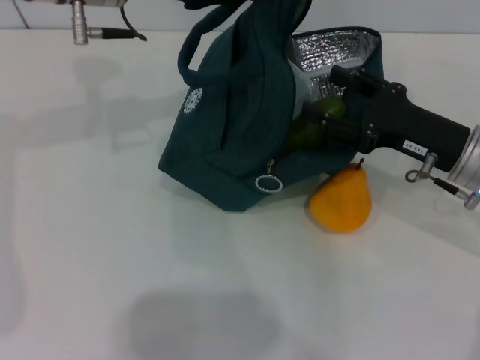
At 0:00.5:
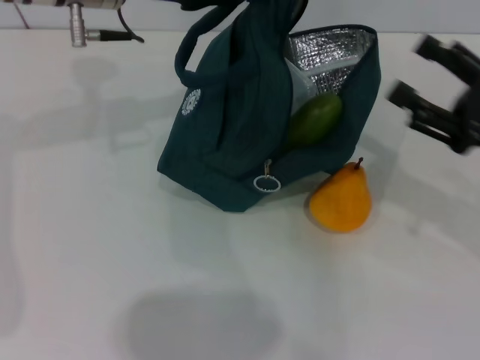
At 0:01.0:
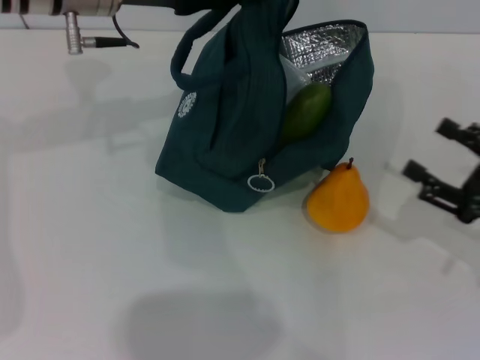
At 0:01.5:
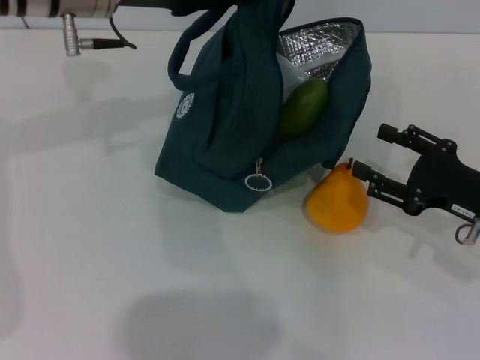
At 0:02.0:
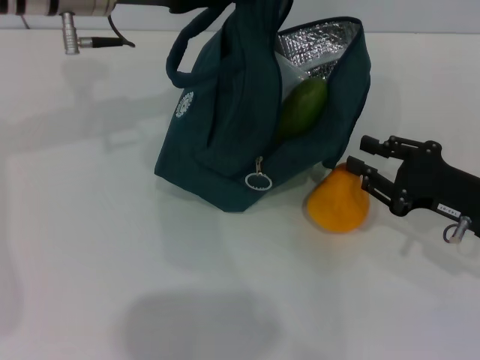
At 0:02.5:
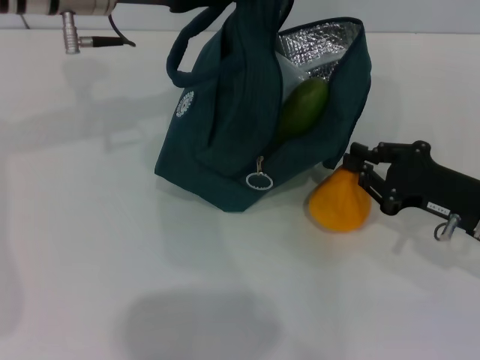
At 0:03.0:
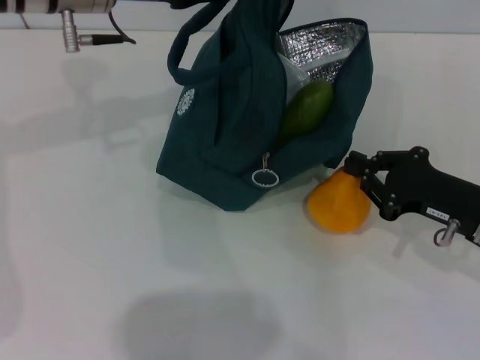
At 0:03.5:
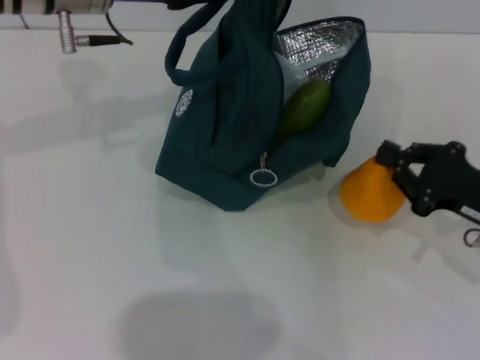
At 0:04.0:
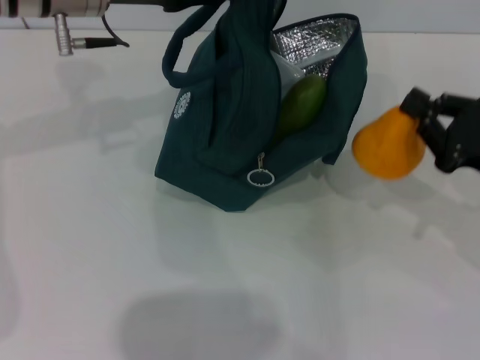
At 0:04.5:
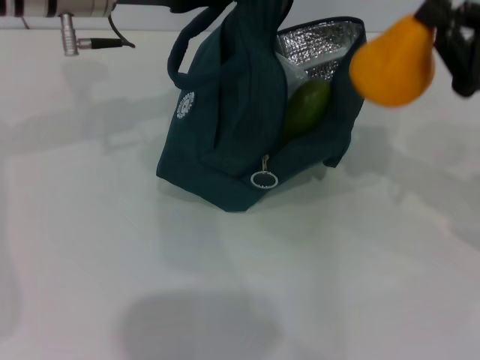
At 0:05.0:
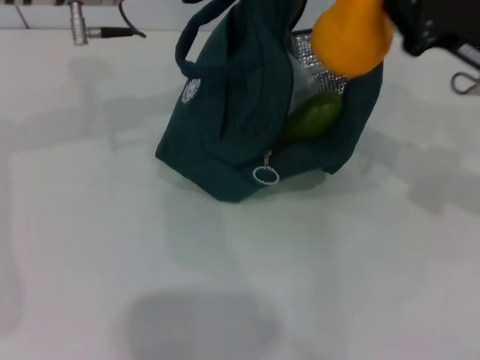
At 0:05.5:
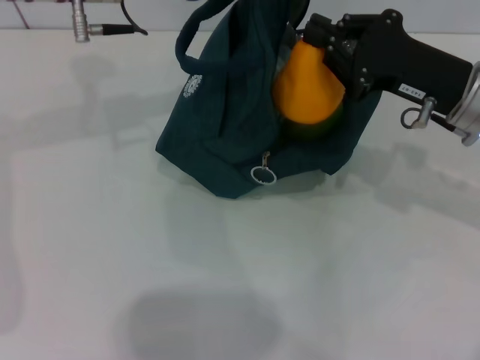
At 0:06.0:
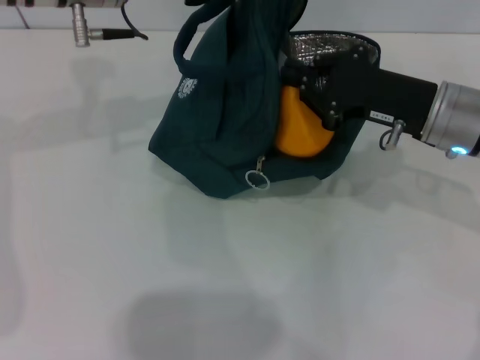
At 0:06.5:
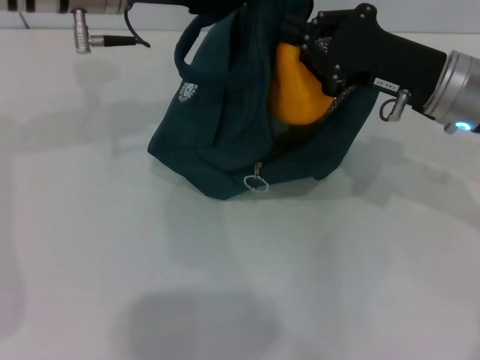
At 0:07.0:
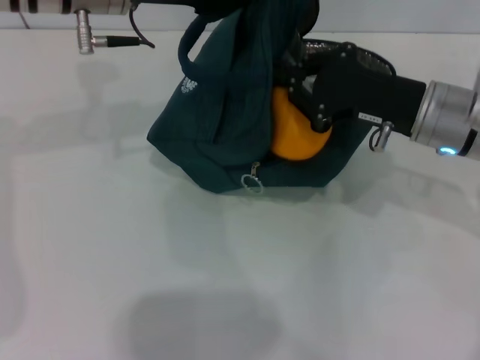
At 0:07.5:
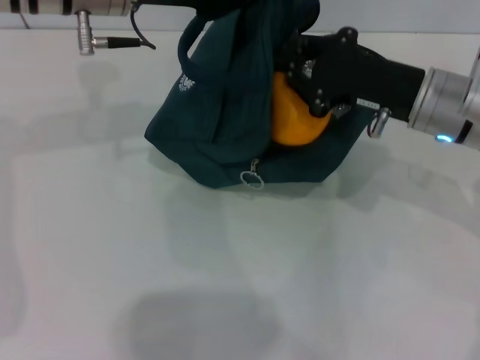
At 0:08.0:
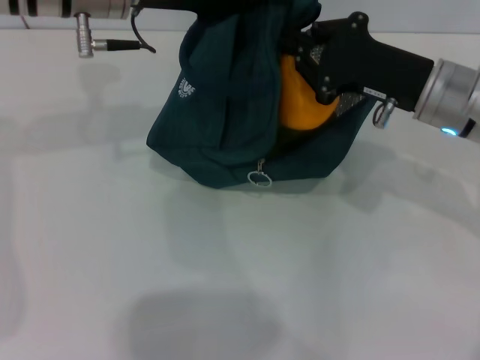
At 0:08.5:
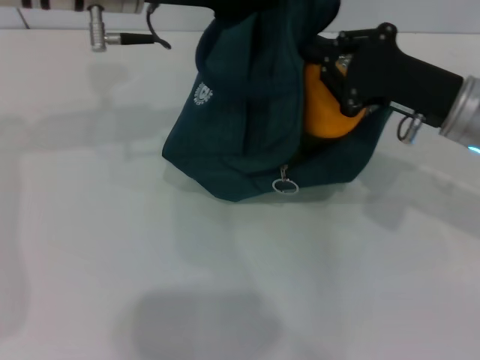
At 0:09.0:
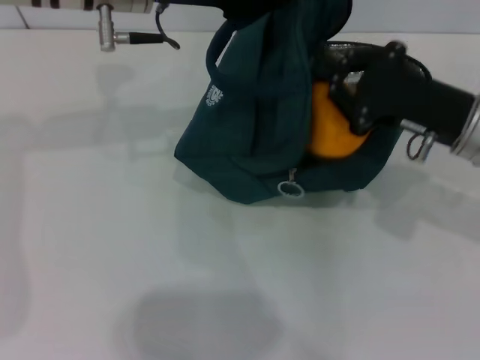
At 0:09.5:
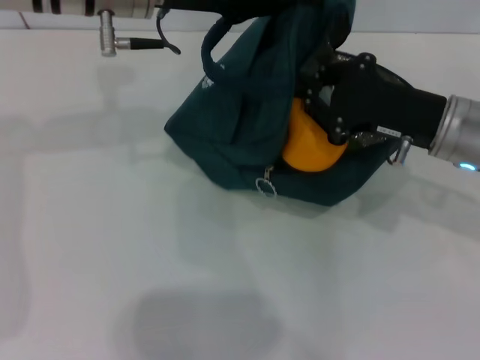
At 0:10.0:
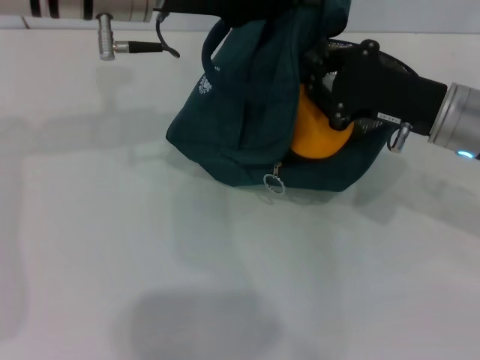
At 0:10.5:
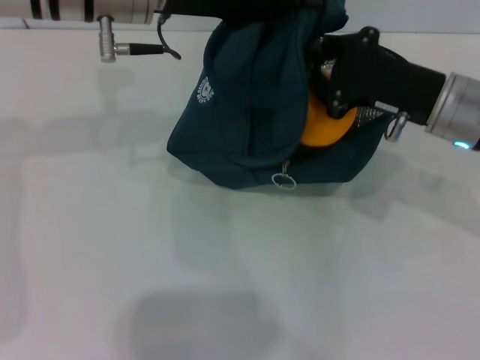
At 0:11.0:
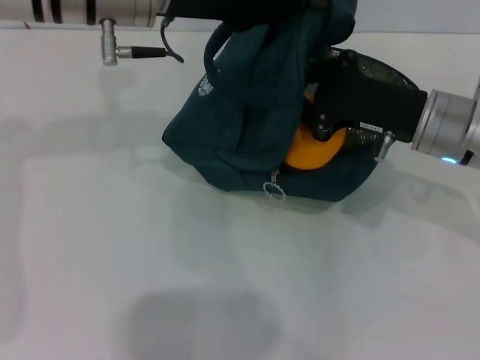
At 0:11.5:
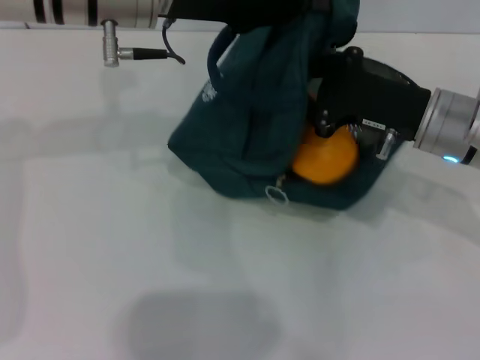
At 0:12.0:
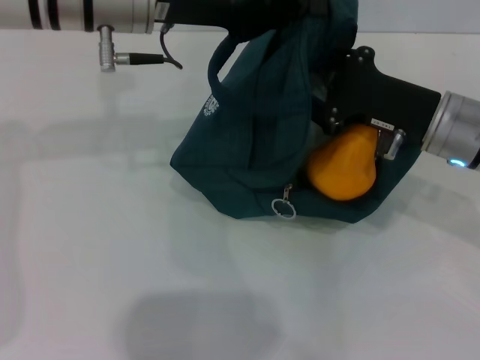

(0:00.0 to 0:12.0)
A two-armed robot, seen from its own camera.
Step, 0:00.5 - 0:03.0: Grab the pear with your right hand.
Step, 0:03.5 - 0:11.5: Secure the lunch bag with your left hand.
0:02.0 - 0:04.0: The right gripper closes its fingers.
0:04.0 - 0:06.0: The right gripper moves to the left and forward, roughly 10 cm.
0:06.0 - 0:12.0: The grippers move only a little.

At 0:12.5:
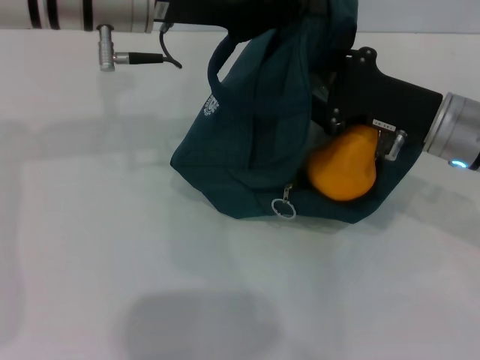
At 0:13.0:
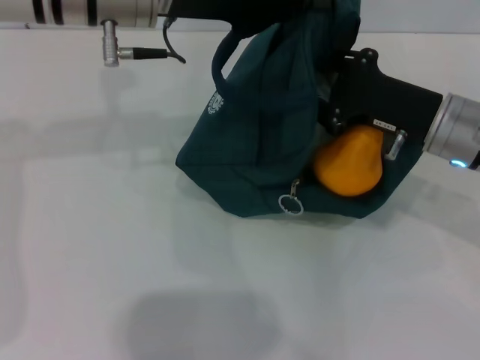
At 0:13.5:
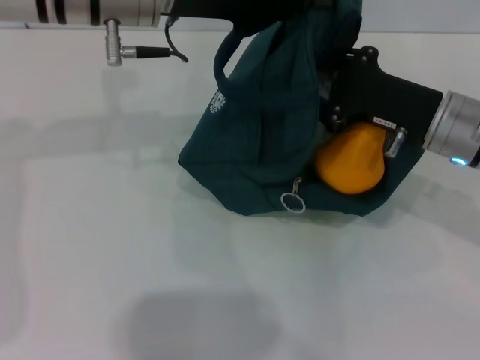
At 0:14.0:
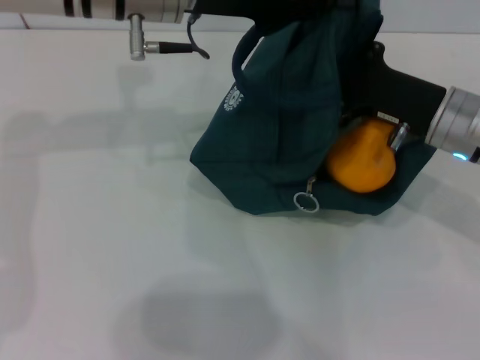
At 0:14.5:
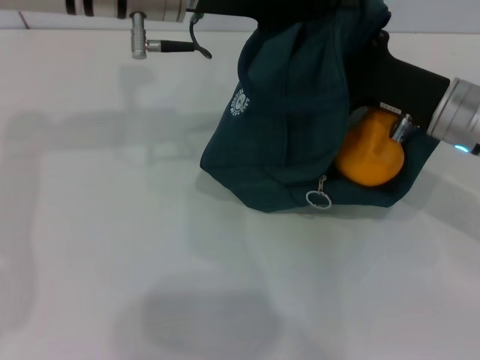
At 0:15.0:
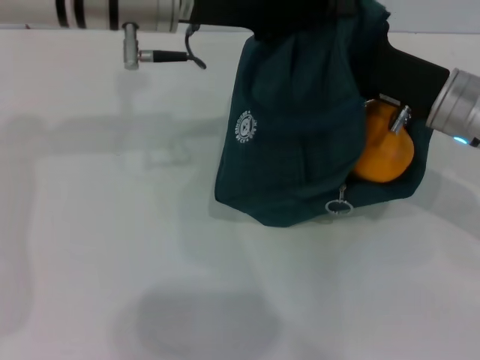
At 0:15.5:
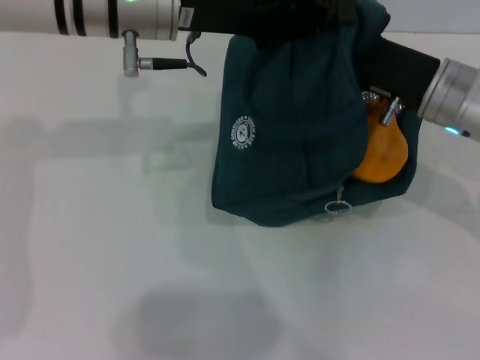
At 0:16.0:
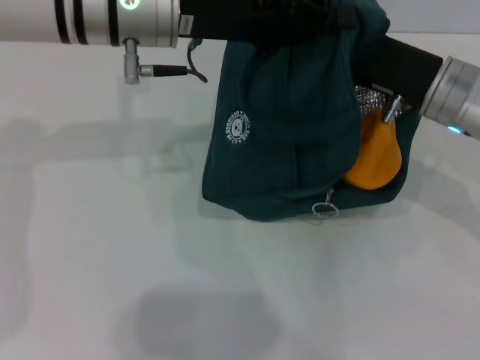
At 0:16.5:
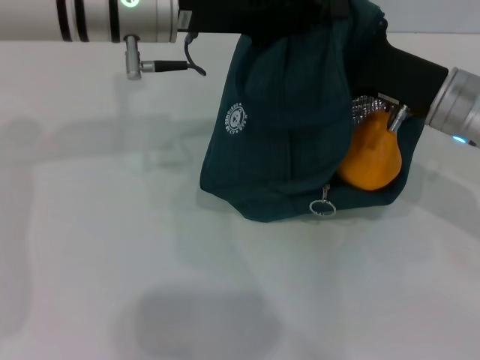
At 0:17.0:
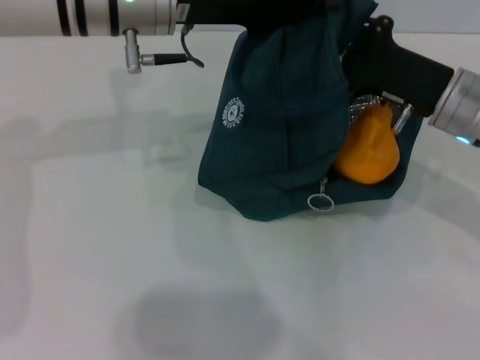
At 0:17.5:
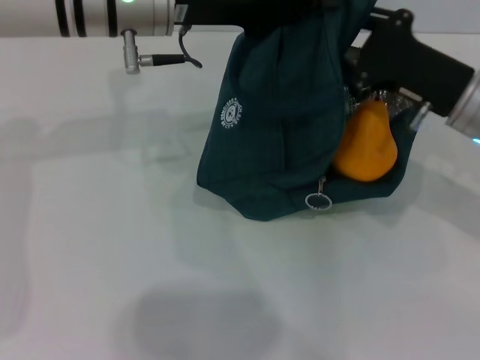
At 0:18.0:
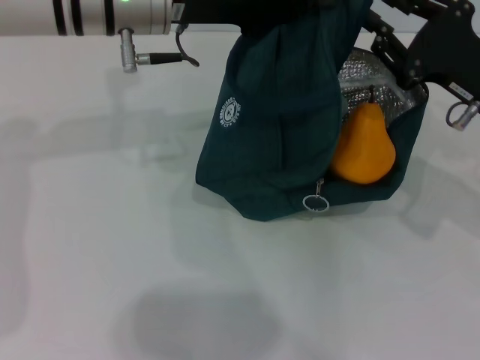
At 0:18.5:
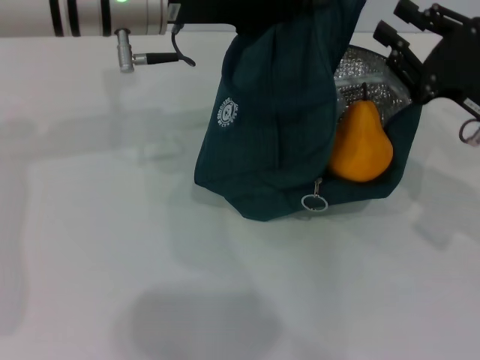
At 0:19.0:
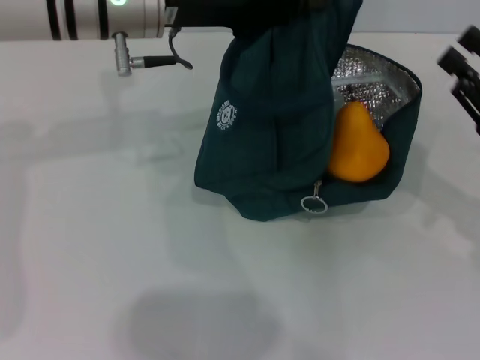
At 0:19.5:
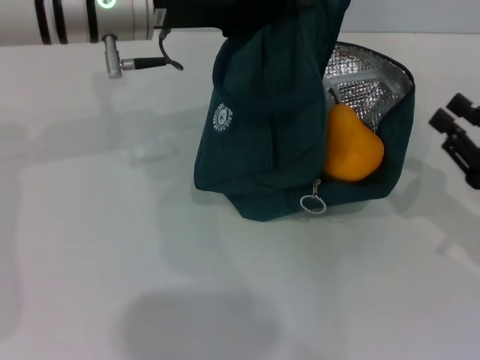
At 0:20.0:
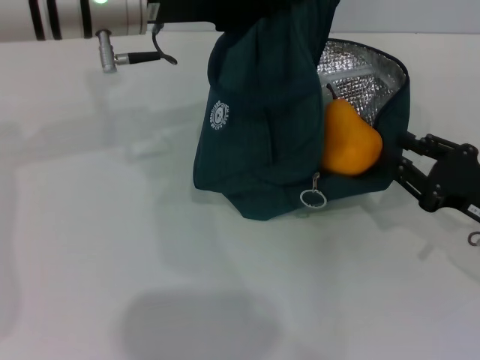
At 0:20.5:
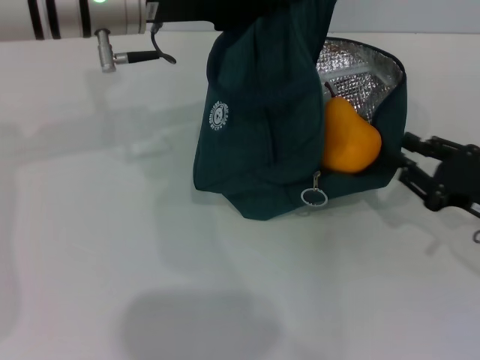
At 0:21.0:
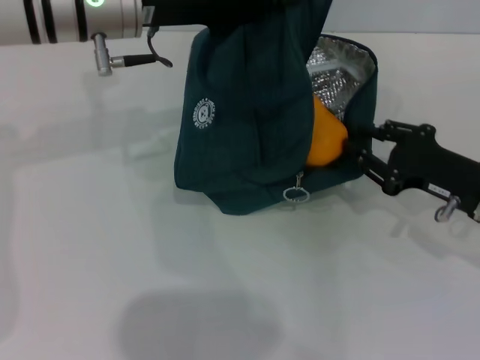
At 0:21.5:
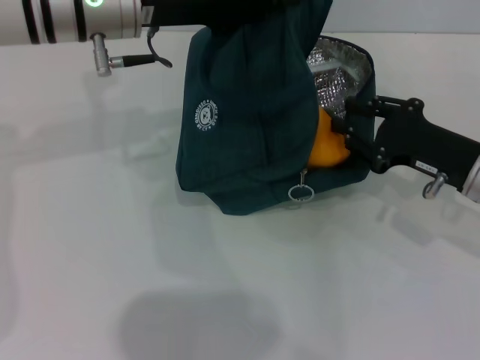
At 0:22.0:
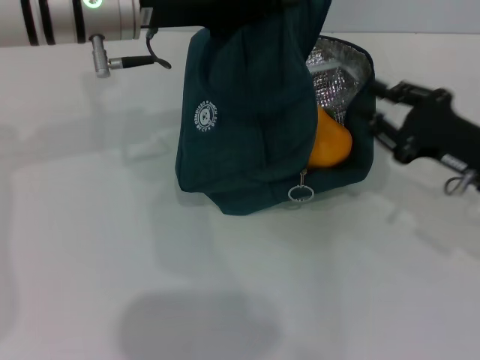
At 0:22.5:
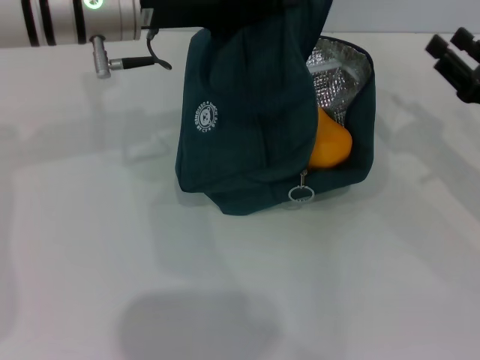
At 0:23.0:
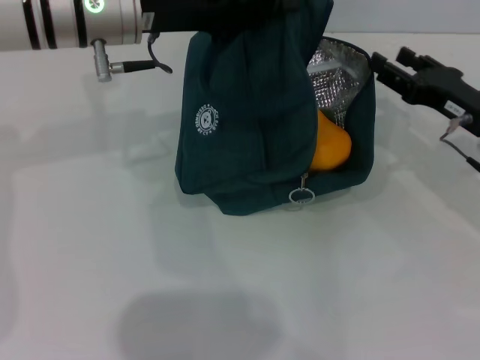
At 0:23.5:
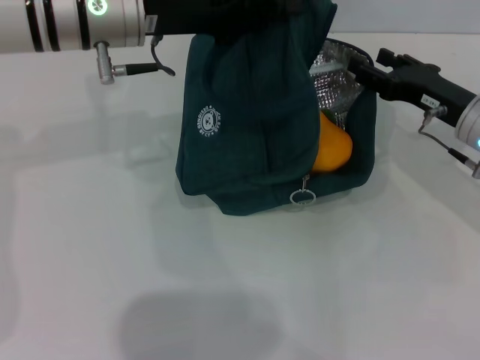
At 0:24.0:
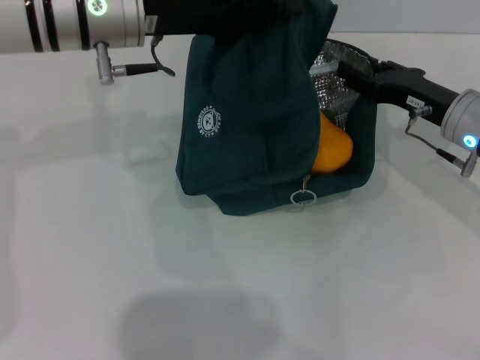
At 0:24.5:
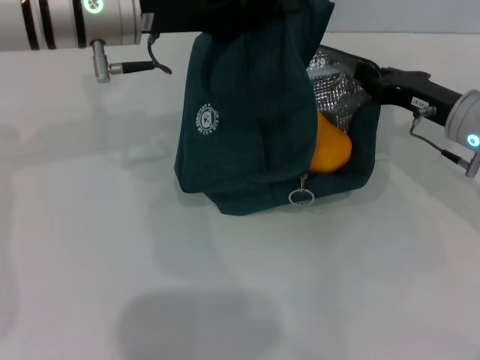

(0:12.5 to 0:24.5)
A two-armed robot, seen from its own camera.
0:12.5 - 0:16.5: The grippers stay close to where they were, moving slightly.
0:16.5 - 0:18.5: The right gripper shifts about 5 cm to the right.
0:18.5 - 0:20.5: The right gripper travels downward by approximately 5 cm.
0:20.5 - 0:22.5: The right gripper ends up about 5 cm from where it was.
0:22.5 - 0:24.5: The right gripper goes approximately 10 cm to the left and forward.

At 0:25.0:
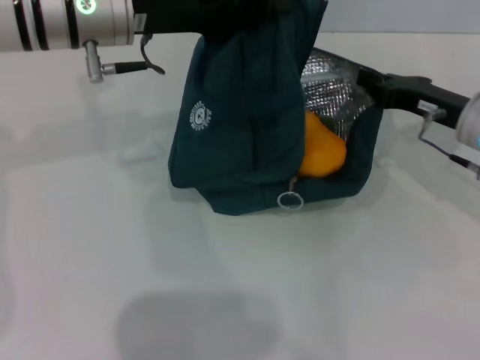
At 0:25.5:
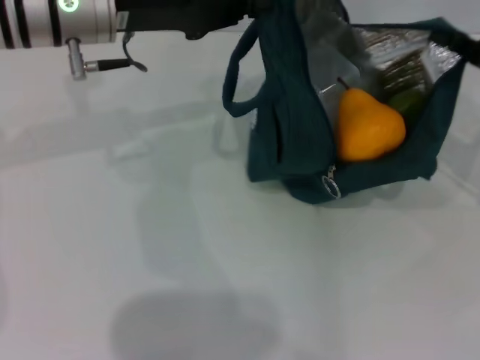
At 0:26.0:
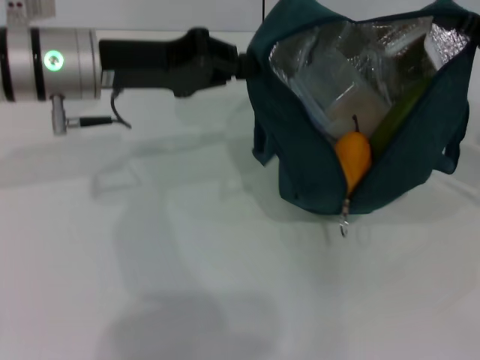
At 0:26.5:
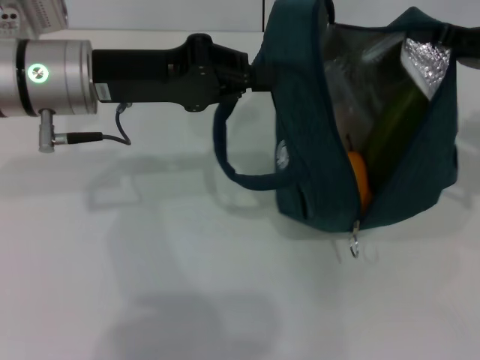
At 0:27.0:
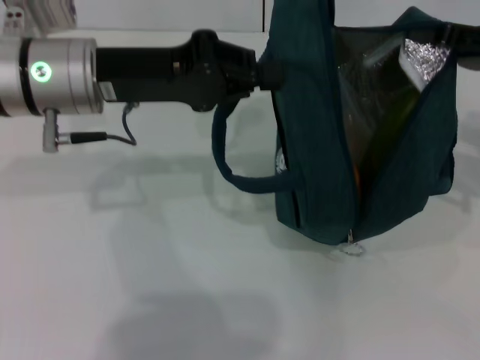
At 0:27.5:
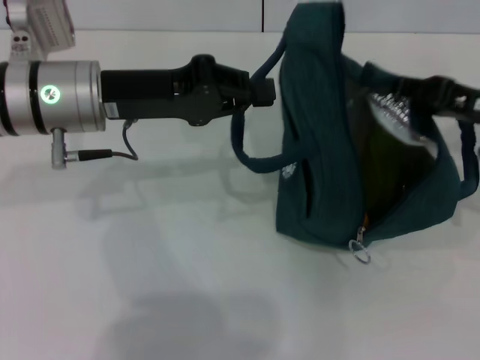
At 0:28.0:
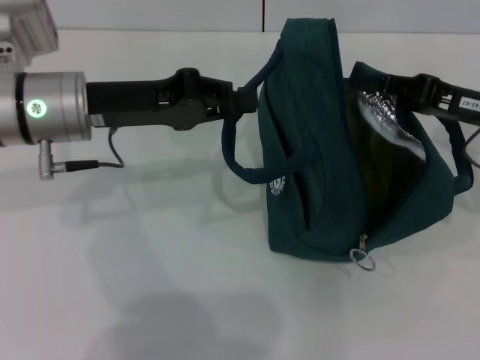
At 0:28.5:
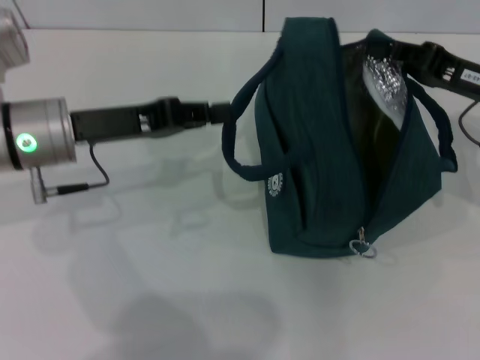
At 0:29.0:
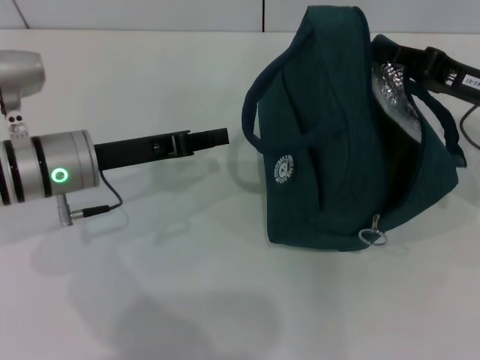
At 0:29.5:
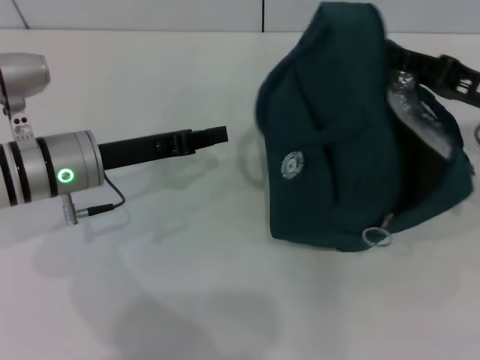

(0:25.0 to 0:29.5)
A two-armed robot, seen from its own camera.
0:25.0 - 0:27.0: The left gripper changes place by roughly 5 cm. Meanwhile the right gripper shifts about 10 cm upward and to the right.
0:27.0 - 0:29.5: The right gripper moves about 5 cm. The left gripper shifts approximately 10 cm downward.
